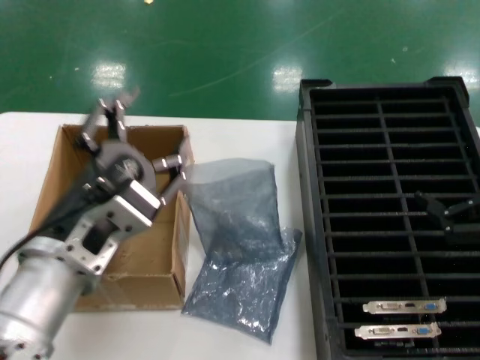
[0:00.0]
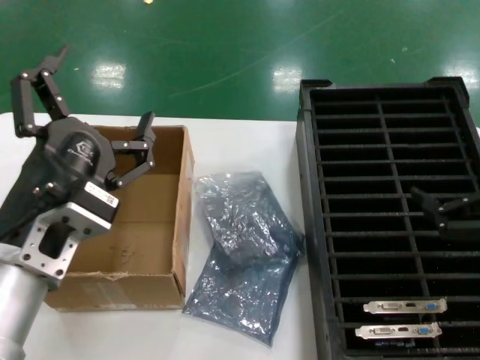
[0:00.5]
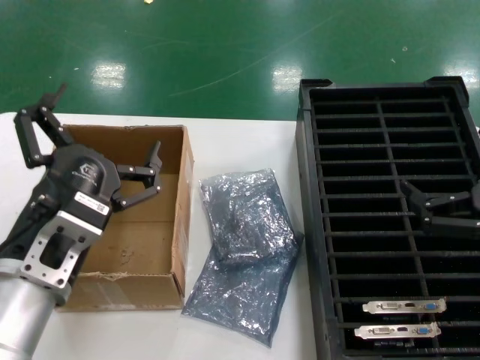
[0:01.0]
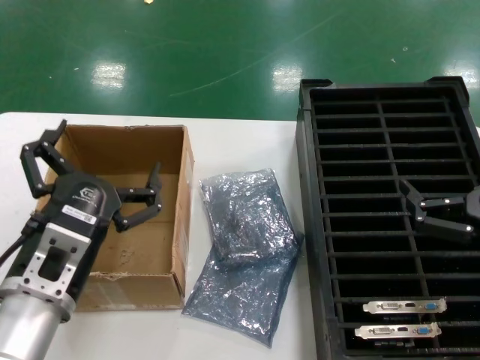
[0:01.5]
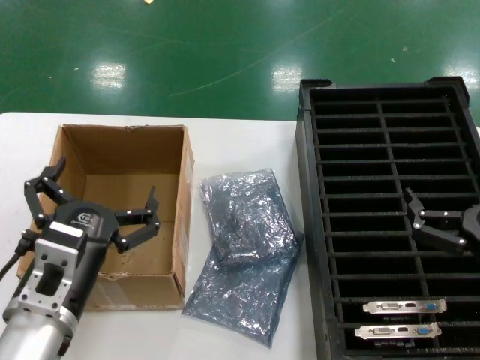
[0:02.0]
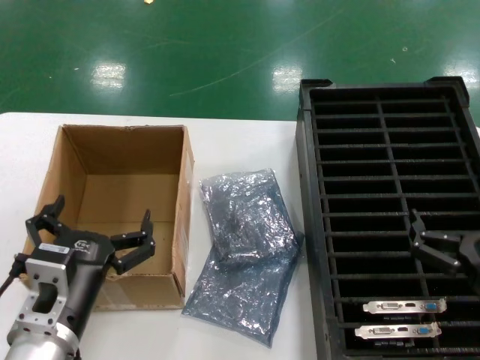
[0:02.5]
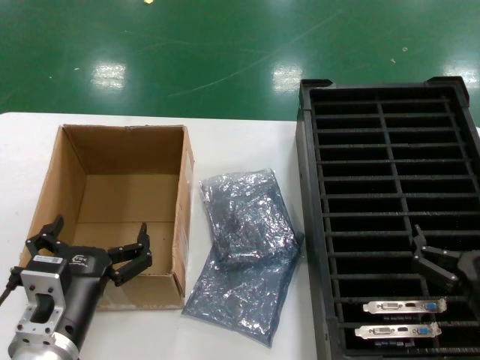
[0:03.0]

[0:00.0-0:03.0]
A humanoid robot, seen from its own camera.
Task of the whole recording: take out graphics card from box remove packaging put into black container.
0:00.0 to 0:01.5: The right hand shifts some 10 cm downward, while the left hand travels downward by approximately 5 cm.
0:01.5 to 0:03.0: Both hands move downward, roughly 10 cm.
